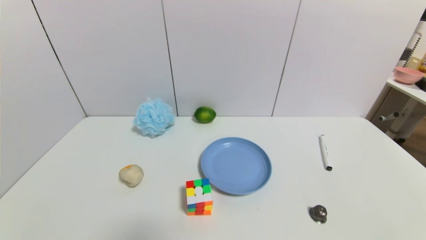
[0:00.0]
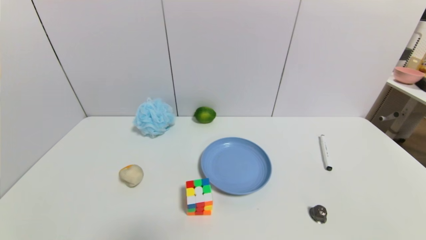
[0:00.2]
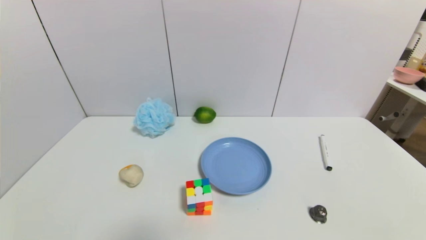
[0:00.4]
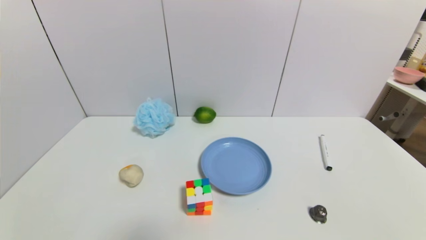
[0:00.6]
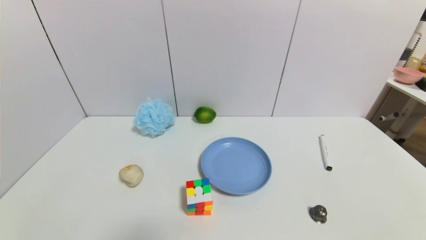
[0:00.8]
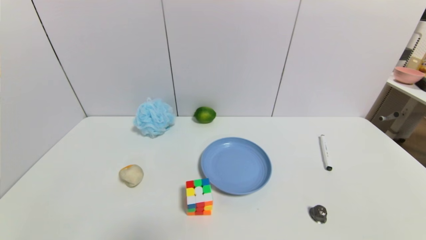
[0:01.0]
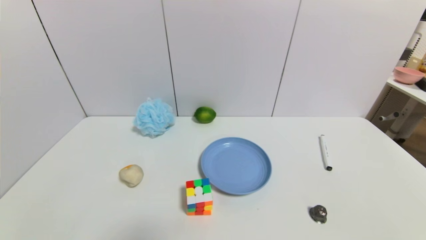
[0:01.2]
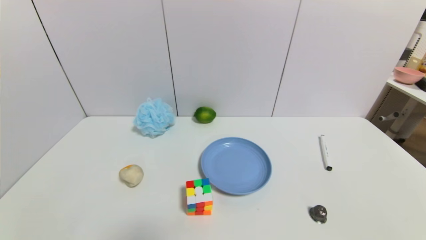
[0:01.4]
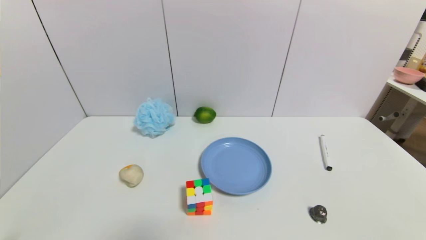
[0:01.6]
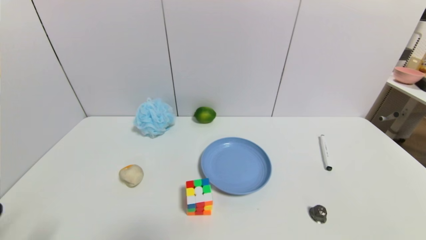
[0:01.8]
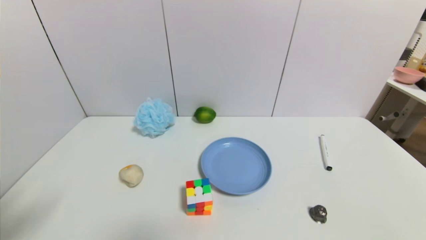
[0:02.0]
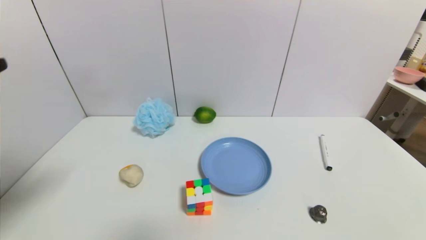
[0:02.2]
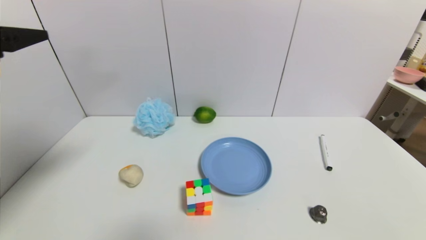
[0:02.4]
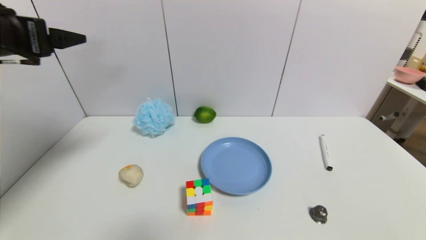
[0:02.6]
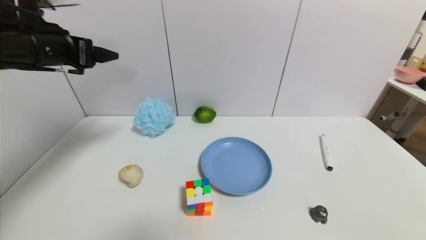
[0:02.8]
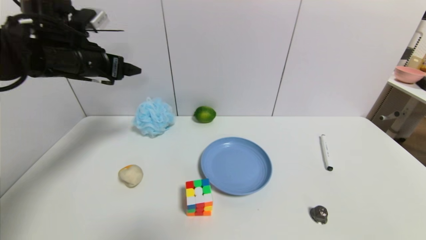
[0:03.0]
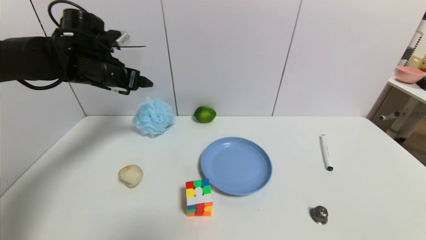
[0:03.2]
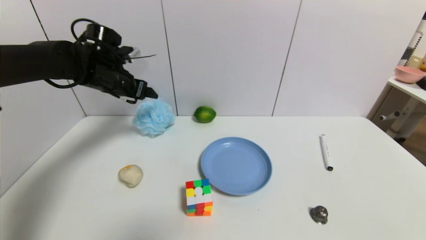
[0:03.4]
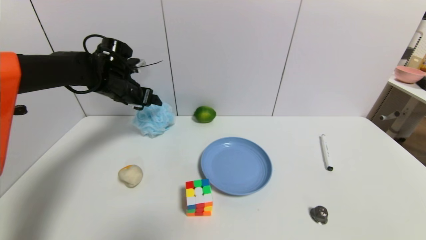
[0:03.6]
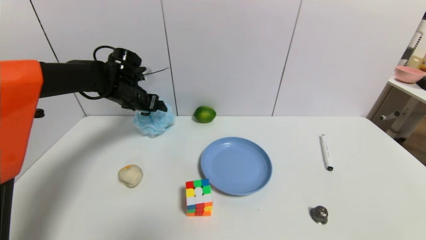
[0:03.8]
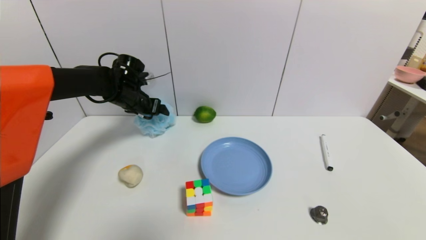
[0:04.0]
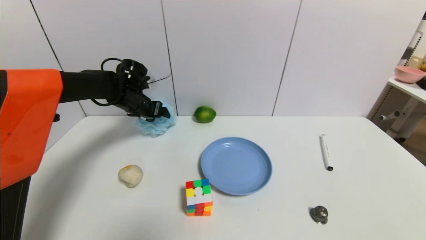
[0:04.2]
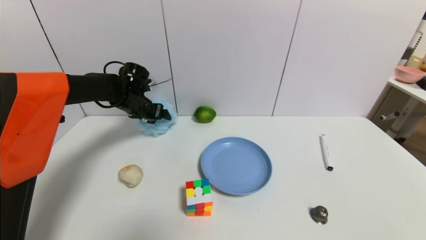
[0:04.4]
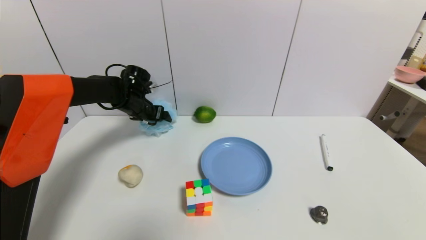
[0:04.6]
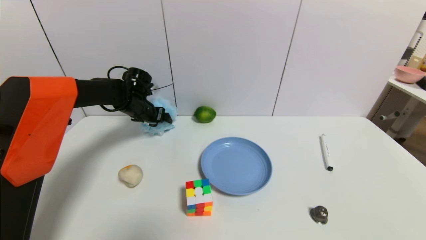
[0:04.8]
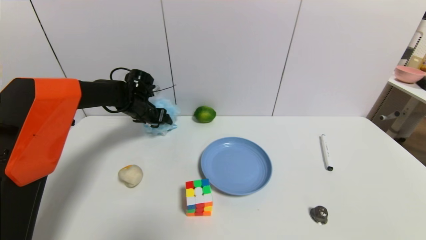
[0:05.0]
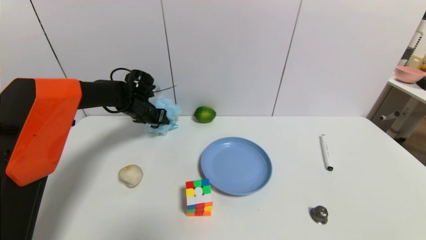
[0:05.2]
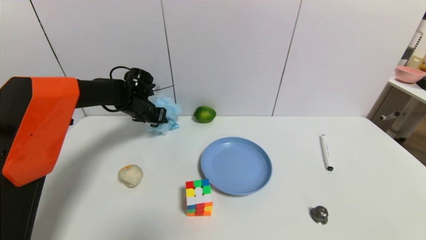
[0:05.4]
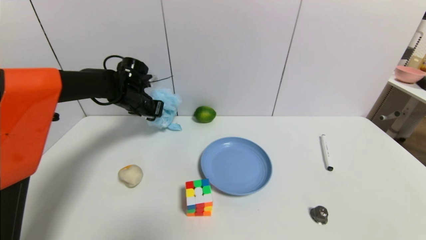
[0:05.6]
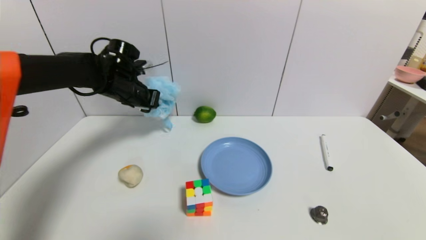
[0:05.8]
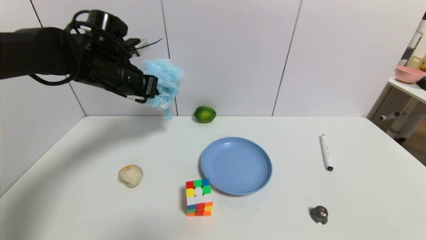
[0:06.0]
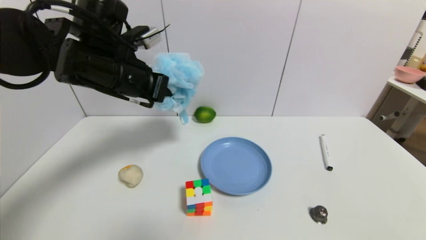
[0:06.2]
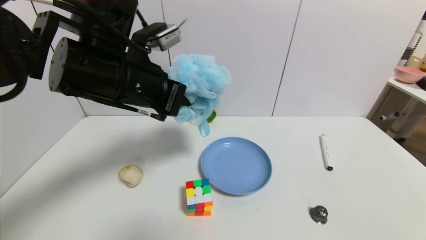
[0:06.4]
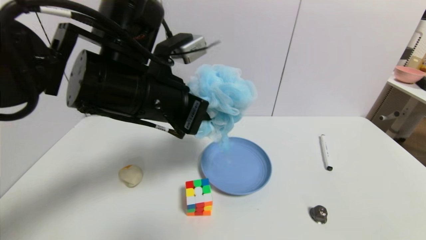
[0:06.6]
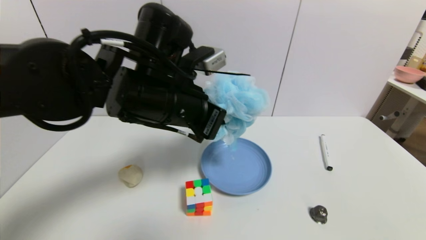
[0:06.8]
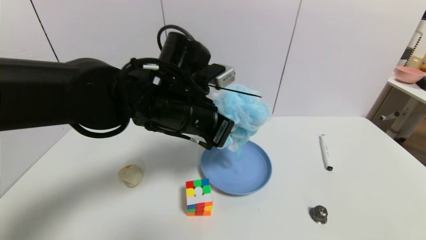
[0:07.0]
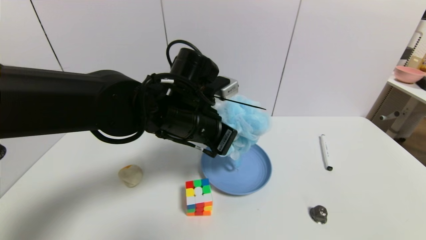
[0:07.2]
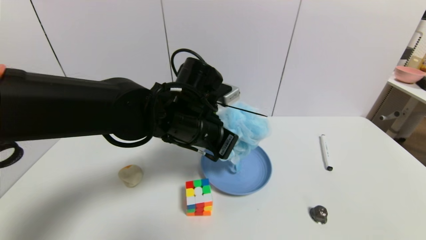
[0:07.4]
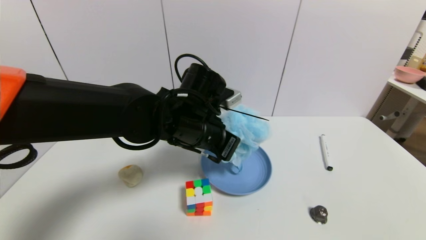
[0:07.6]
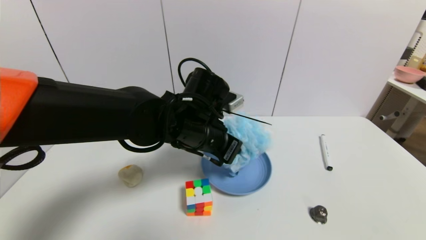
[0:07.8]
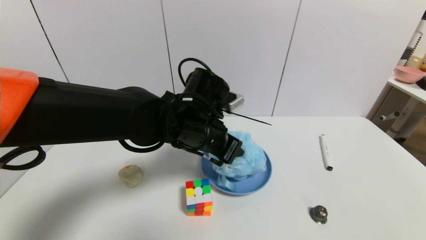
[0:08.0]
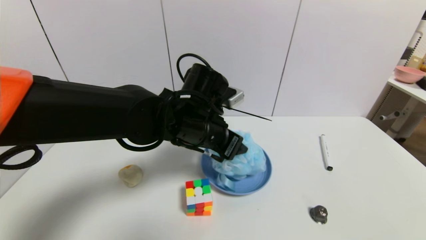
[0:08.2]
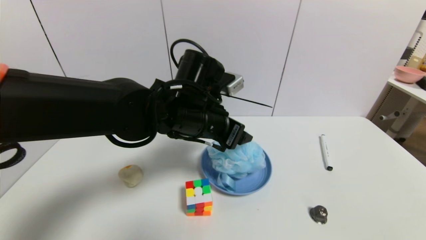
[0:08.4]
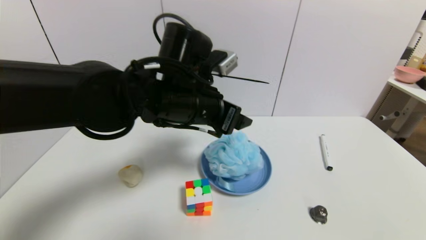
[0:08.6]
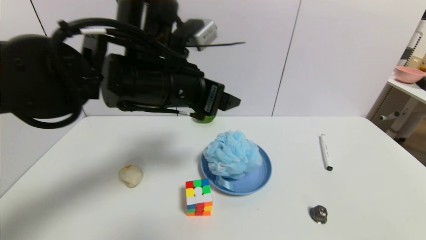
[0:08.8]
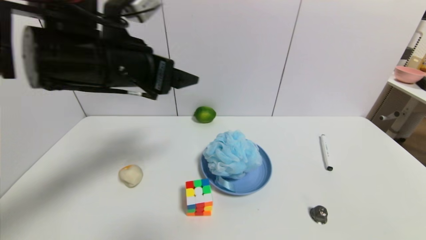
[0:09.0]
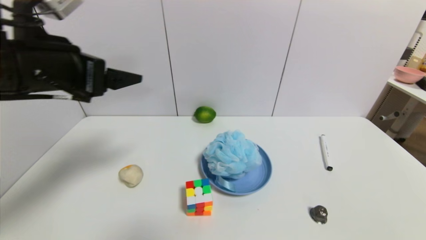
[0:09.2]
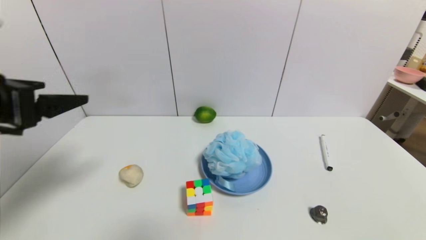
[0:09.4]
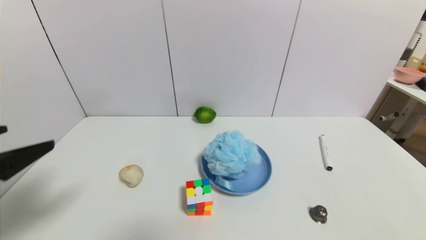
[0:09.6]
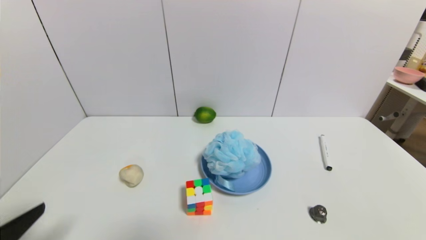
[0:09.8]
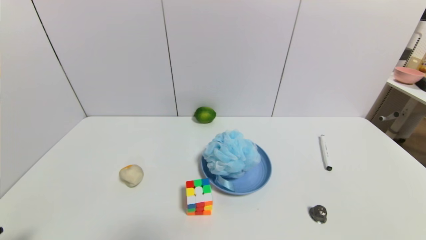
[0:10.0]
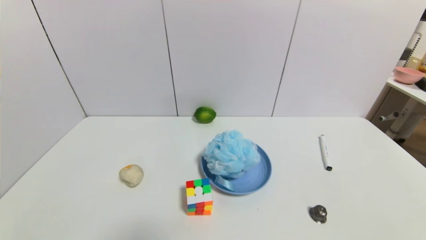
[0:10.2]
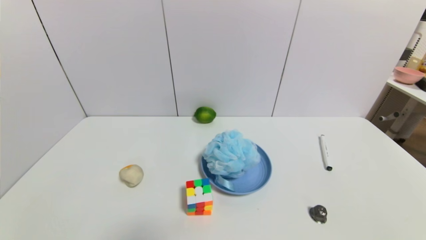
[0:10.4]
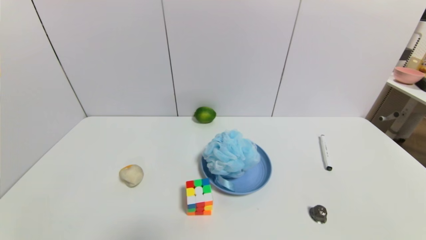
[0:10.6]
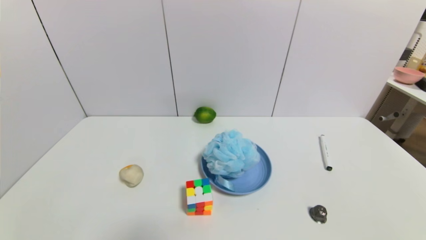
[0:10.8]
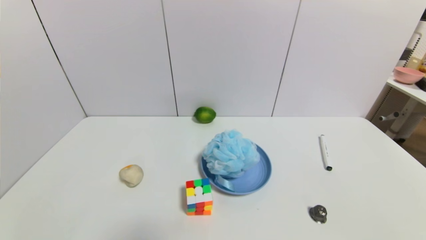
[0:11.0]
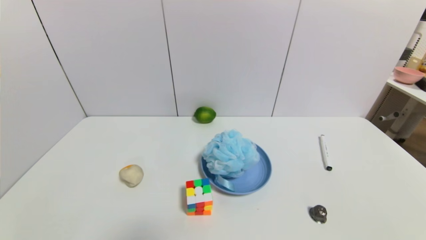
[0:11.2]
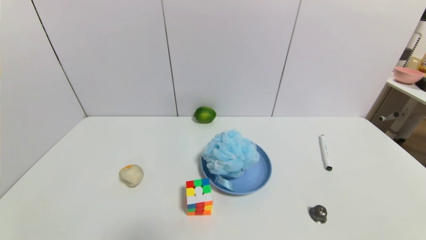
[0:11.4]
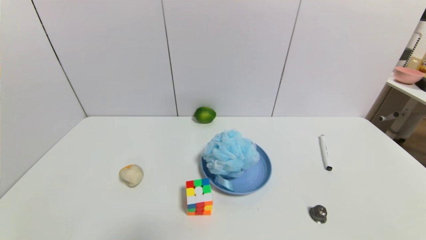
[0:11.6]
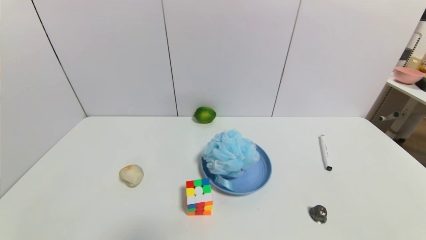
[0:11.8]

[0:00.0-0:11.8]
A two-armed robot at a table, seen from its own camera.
Task of the whole recording: use a gripper to pick the target object and place on the blue plate.
Step, 0:00.0 to 0:05.2: Grasp the shower sphere with the left gripper.
Step, 0:05.4 to 0:08.6: Place the shower sphere on the blue plate with the left gripper.
0:00.0 to 0:01.4: Both grippers stay about where they are.
0:01.4 to 0:03.0: The left gripper goes approximately 40 cm forward and upward.
0:03.0 to 0:04.4: The left gripper is displaced downward and forward by some 20 cm.
0:04.4 to 0:06.0: The left gripper moves upward and backward, roughly 15 cm, and closes its fingers.
0:06.0 to 0:07.4: The left gripper moves to the right, backward and downward, roughly 20 cm.
0:07.4 to 0:08.8: The left gripper moves upward, roughly 10 cm, and opens up.
0:08.8 to 0:10.4: The left gripper goes roughly 40 cm backward, downward and to the left.
